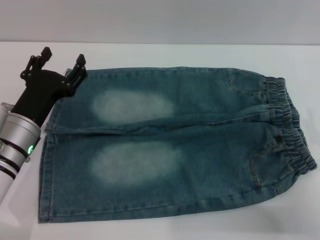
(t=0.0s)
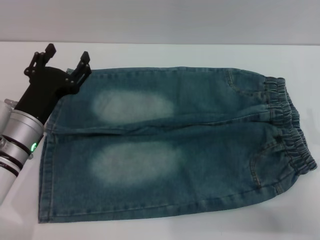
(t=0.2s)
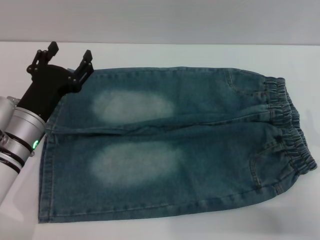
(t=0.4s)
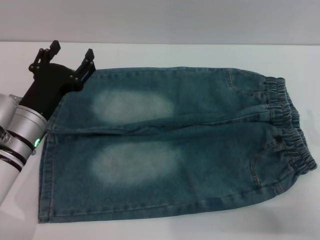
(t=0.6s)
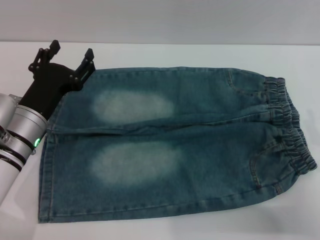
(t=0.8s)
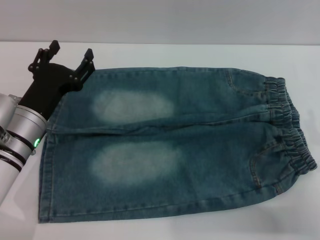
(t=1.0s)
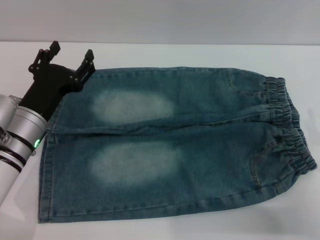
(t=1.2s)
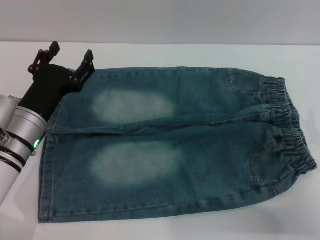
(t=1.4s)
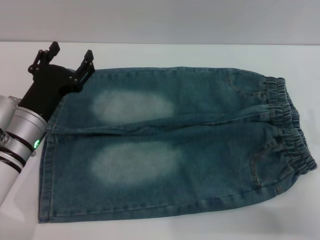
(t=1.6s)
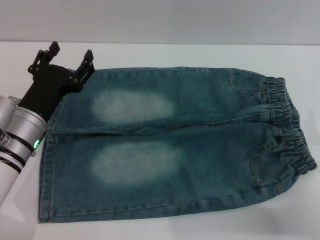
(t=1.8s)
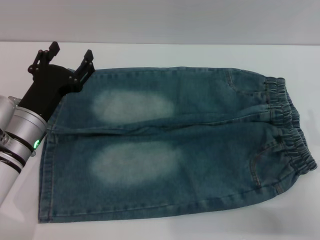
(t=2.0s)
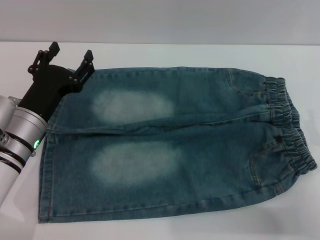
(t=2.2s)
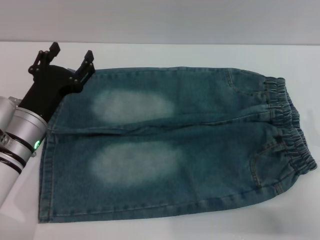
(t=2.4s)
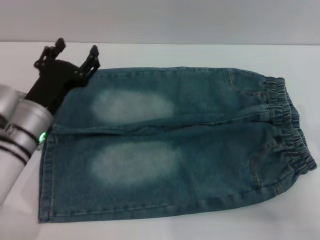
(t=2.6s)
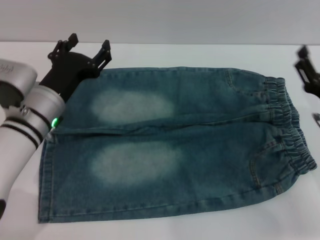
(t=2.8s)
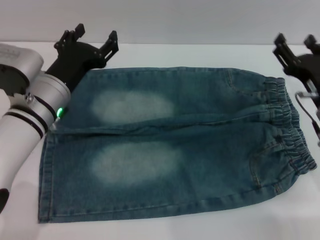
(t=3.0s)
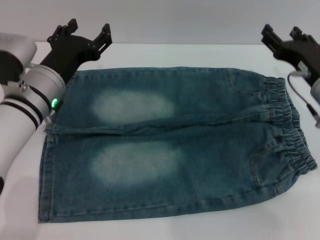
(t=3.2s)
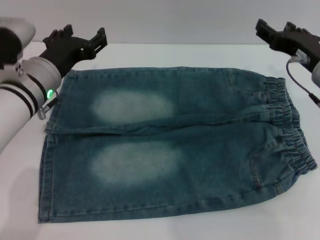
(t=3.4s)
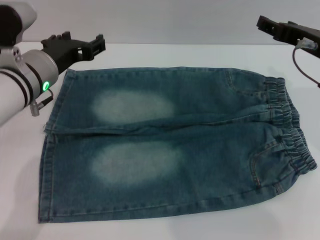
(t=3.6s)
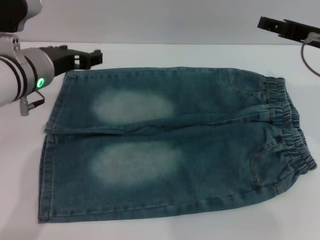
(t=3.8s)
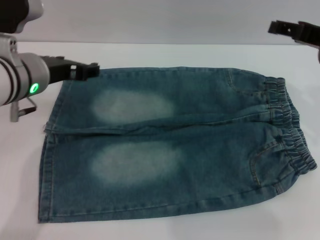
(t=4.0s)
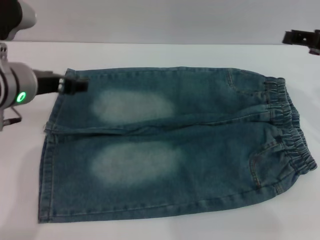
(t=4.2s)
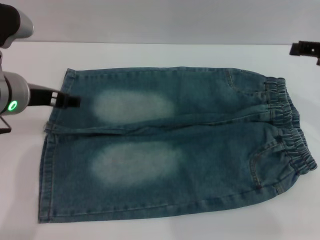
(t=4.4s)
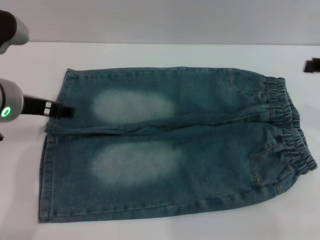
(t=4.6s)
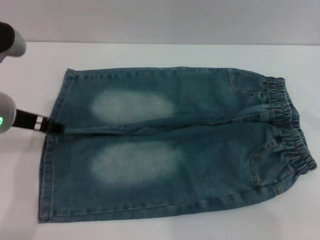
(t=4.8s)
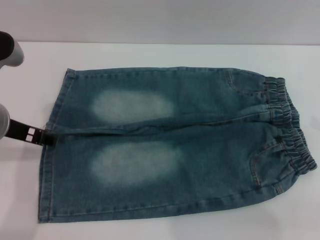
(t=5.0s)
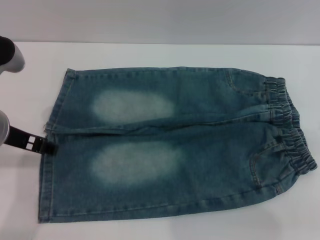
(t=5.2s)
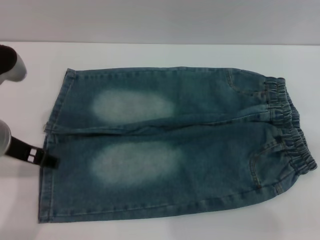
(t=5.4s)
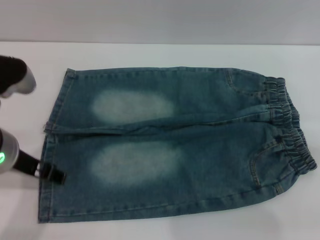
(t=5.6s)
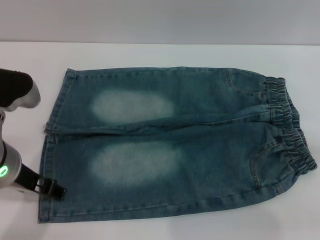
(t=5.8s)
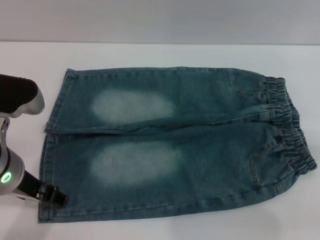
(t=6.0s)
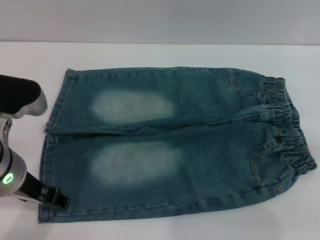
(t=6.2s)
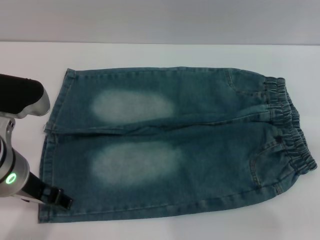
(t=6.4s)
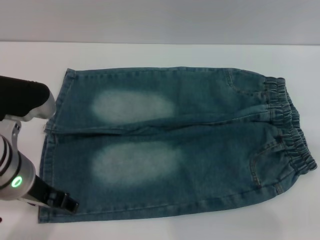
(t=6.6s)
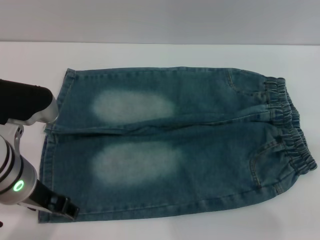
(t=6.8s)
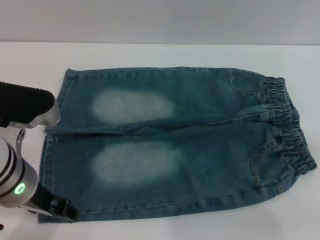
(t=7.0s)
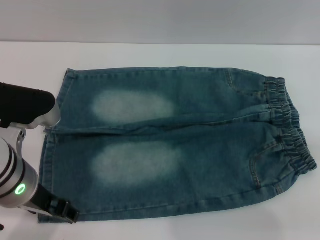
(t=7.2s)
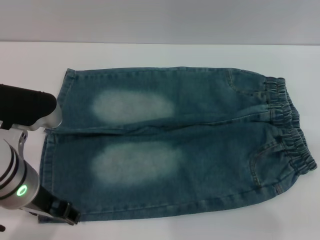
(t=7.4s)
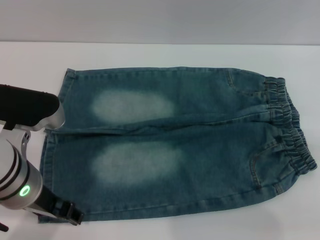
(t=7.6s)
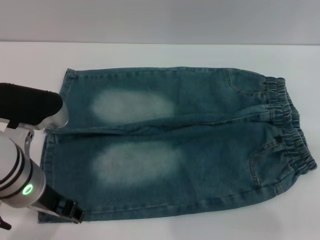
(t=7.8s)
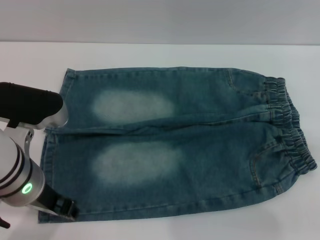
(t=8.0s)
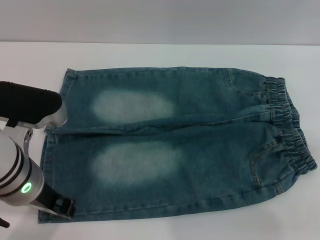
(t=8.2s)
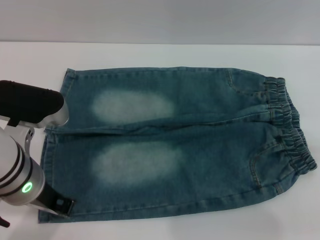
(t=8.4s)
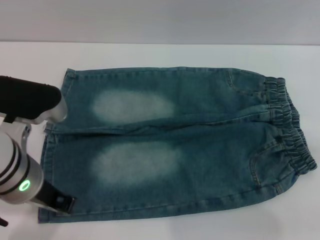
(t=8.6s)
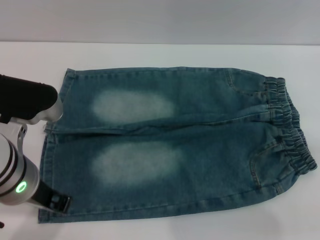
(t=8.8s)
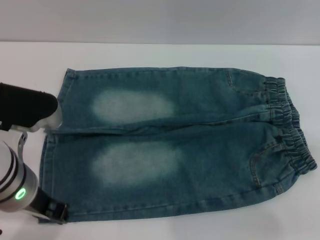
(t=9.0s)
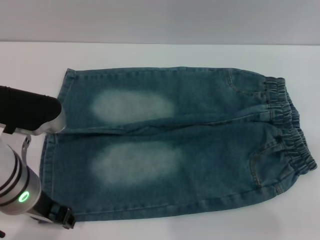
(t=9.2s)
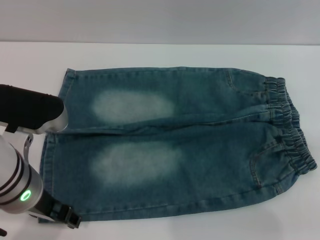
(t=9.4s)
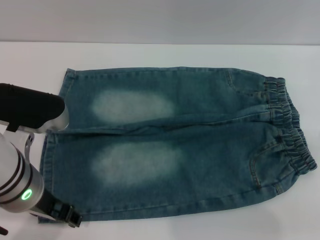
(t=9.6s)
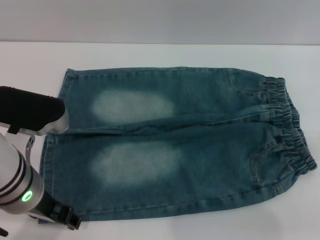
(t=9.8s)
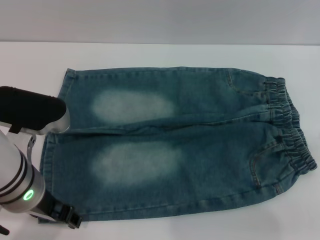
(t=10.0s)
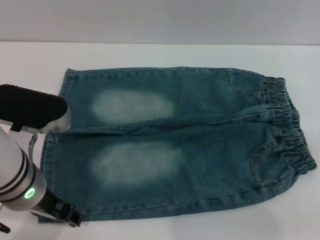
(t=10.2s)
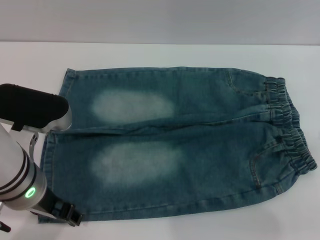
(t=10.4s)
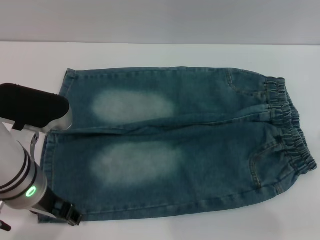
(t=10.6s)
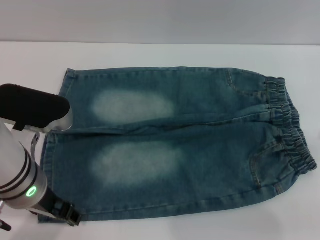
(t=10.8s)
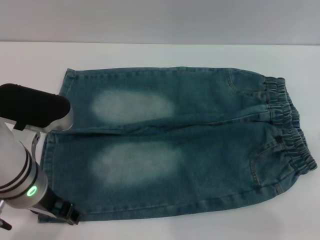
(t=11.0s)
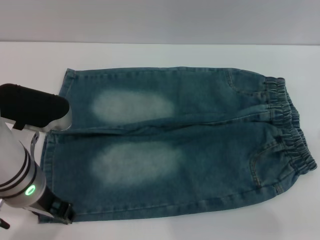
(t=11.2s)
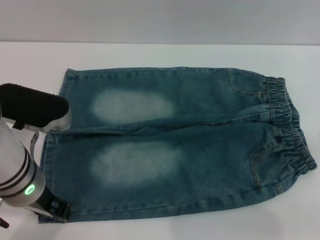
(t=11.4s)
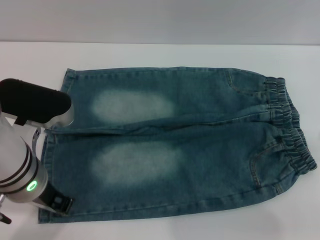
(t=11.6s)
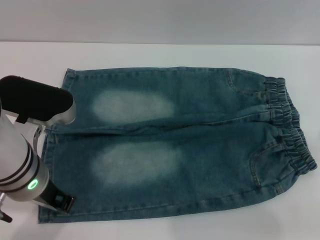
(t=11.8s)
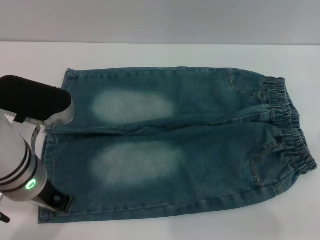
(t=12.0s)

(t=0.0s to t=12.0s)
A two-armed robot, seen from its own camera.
t=0.0s - t=1.6s: Neither gripper changes place.
t=1.6s - t=3.0s: The right gripper travels forward by about 10 cm. Meanwhile the left gripper moves roughly 5 cm.
t=3.0s - t=4.4s: The right gripper heads upward, covering roughly 15 cm, while the left gripper is displaced upward by approximately 10 cm.
t=4.4s - t=6.0s: The right gripper goes about 10 cm to the right and backward; the left gripper heads backward, covering approximately 5 cm.
t=6.0s - t=7.6s: The grippers make only small movements.
t=7.6s - t=9.0s: The left gripper closes up.
t=9.0s - t=10.4s: The left gripper opens.
t=10.4s - t=12.0s: The left gripper closes up.

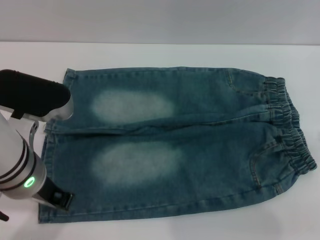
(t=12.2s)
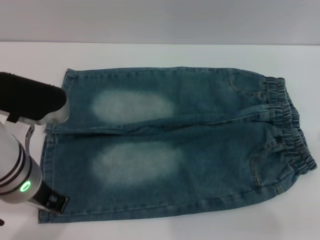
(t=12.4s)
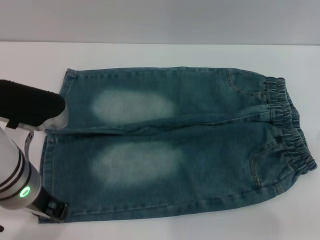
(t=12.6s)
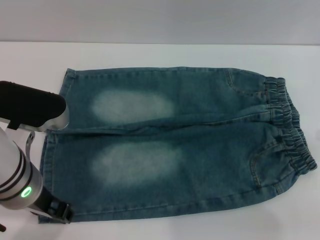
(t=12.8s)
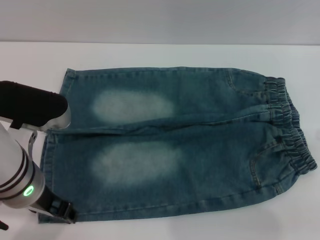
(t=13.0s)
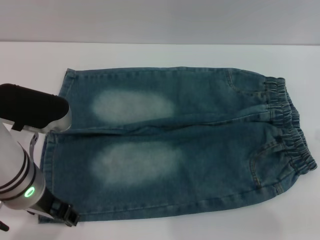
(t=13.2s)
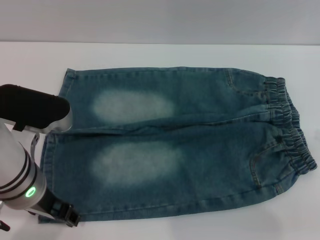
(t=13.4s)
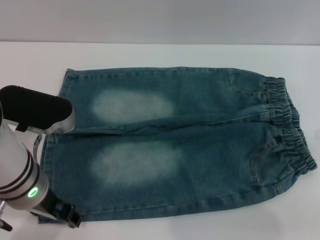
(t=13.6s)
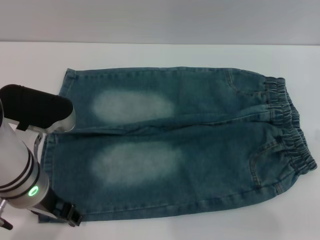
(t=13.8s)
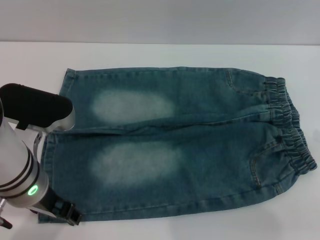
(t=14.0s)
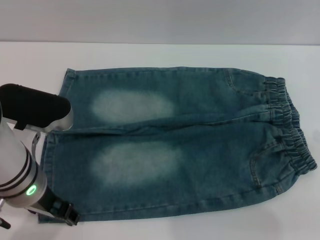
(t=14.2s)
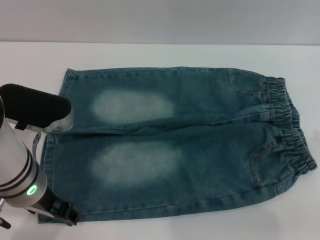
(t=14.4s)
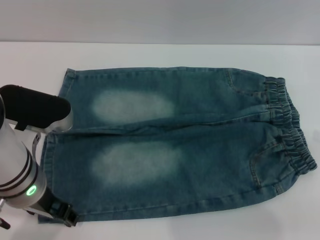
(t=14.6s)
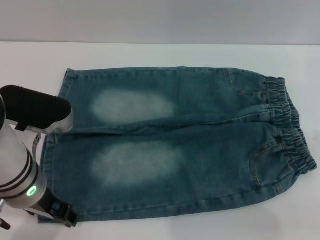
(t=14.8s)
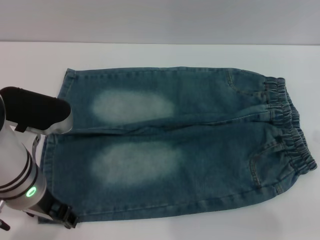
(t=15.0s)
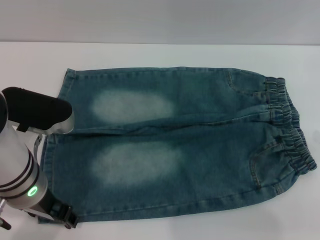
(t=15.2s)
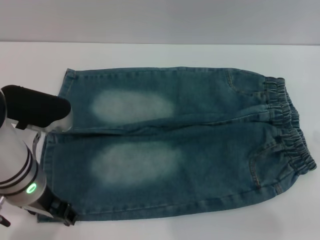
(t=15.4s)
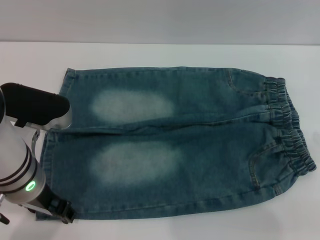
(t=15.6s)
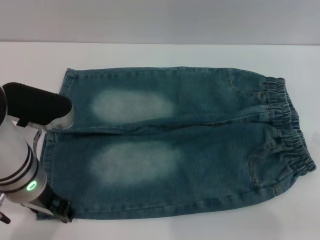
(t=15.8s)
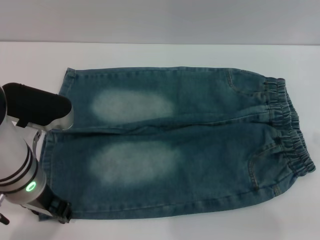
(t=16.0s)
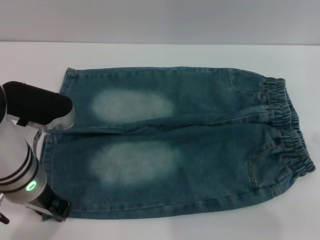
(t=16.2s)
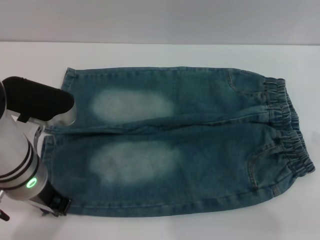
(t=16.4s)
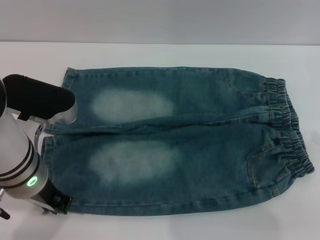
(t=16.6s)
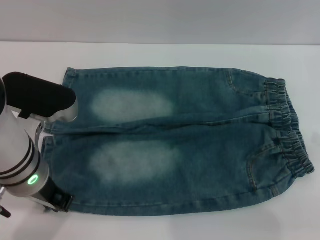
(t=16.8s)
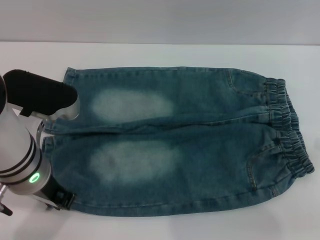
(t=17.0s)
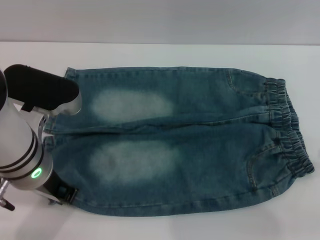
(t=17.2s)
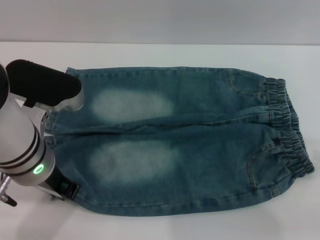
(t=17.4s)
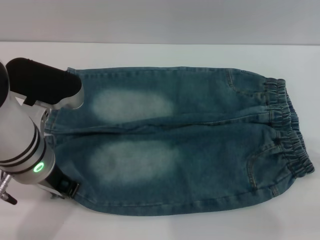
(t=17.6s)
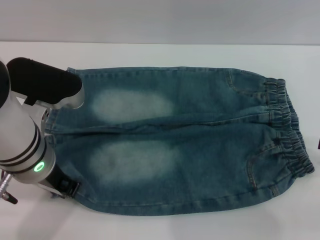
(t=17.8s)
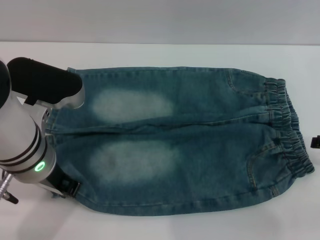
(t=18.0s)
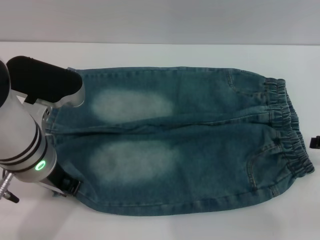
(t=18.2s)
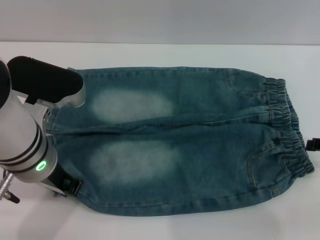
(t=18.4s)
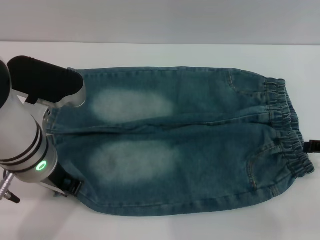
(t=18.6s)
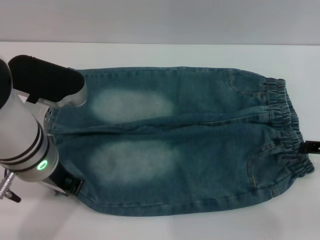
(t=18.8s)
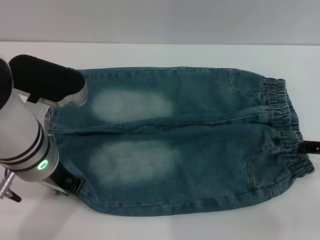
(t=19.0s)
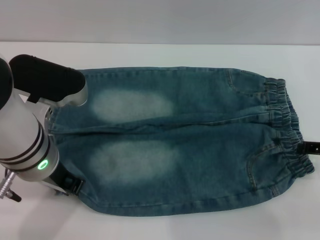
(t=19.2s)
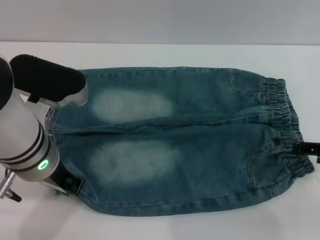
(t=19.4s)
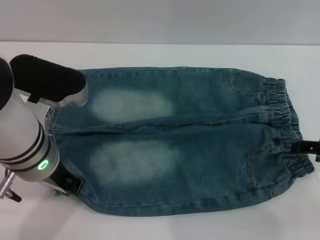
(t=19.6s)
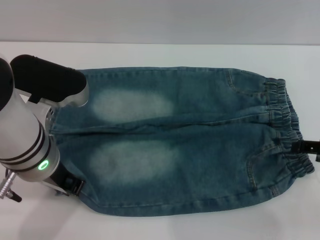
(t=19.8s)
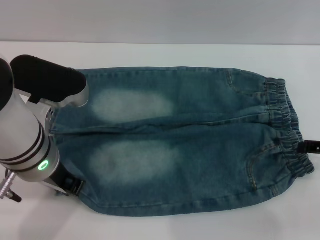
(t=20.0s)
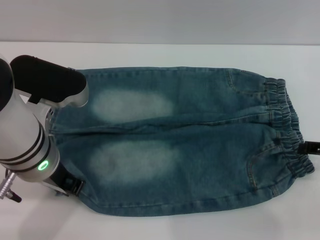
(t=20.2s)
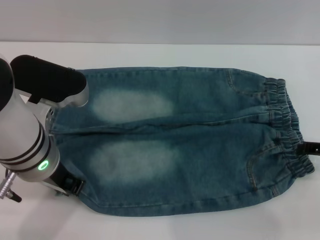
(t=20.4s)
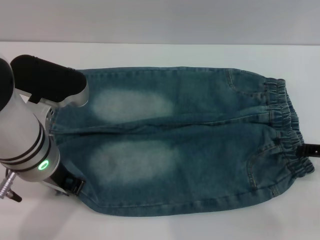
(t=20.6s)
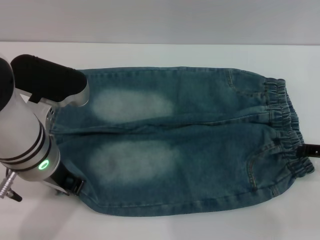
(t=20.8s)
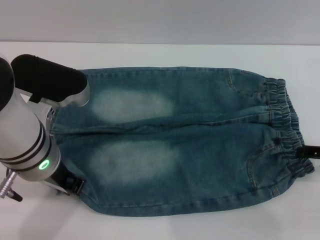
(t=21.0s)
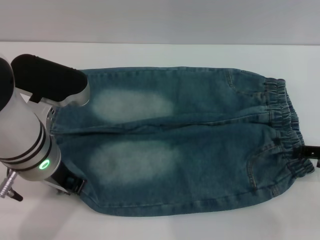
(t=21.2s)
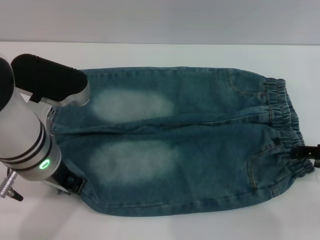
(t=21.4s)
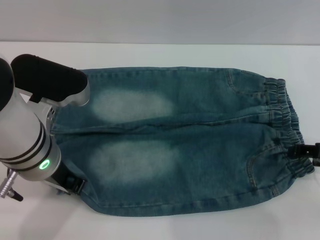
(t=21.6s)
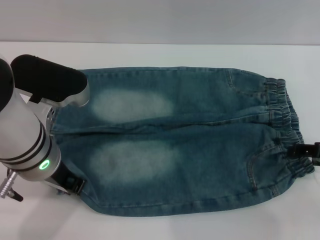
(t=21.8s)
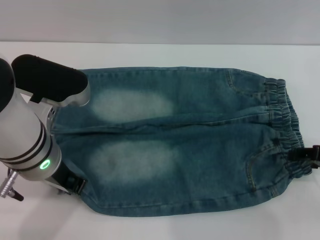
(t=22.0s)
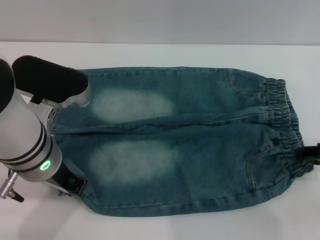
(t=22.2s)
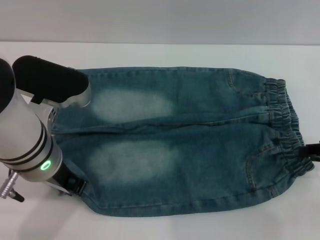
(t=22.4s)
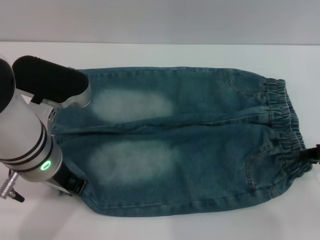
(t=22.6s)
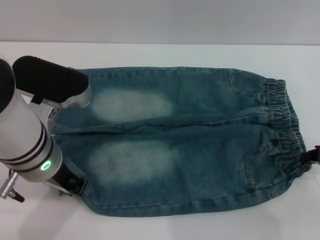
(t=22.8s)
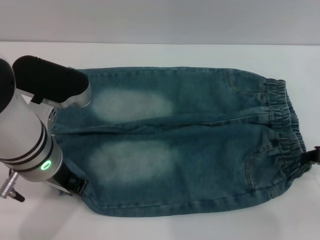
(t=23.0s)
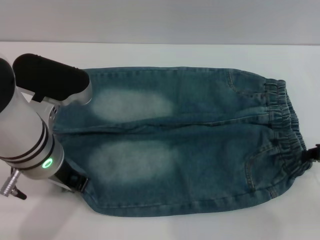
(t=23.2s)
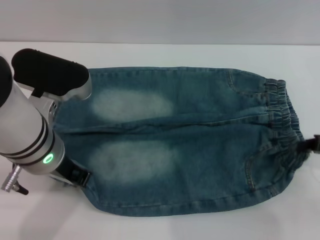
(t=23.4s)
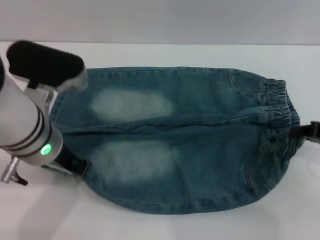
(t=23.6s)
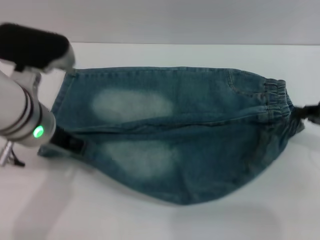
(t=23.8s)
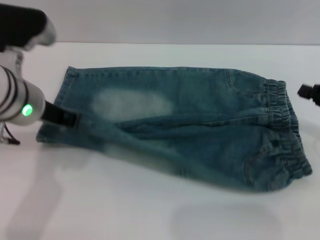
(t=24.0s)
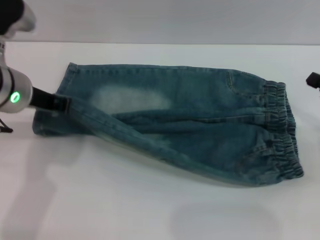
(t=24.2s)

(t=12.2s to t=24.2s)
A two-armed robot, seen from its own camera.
t=12.2s - t=13.8s: The left gripper opens up.
t=13.8s - t=15.2s: Both grippers stay put.
t=15.2s - t=16.6s: The left gripper closes.
t=18.2s - t=21.2s: The grippers stay close to where they were, moving slightly.
t=22.6s - t=24.2s: The left gripper goes approximately 10 cm forward and to the left.
